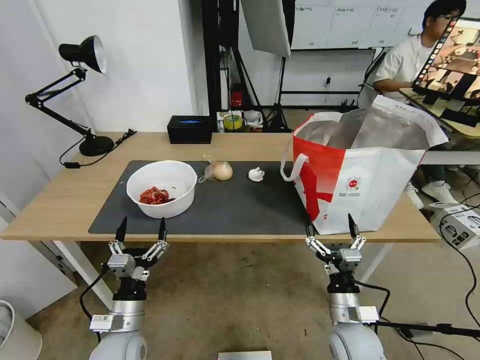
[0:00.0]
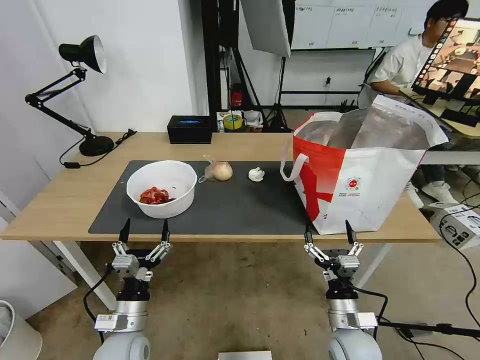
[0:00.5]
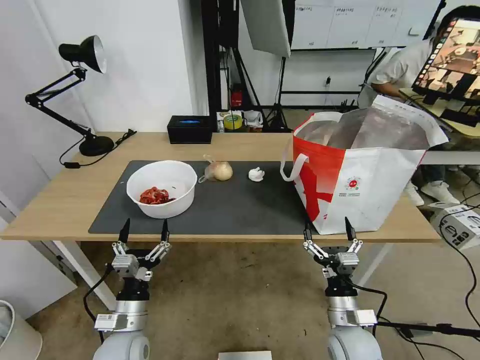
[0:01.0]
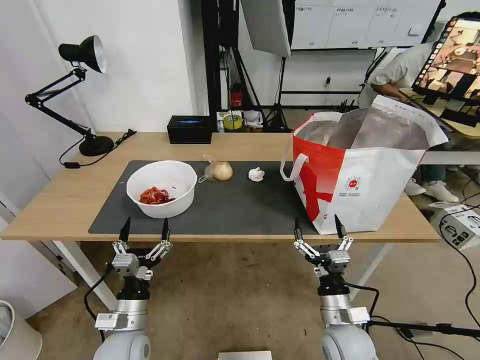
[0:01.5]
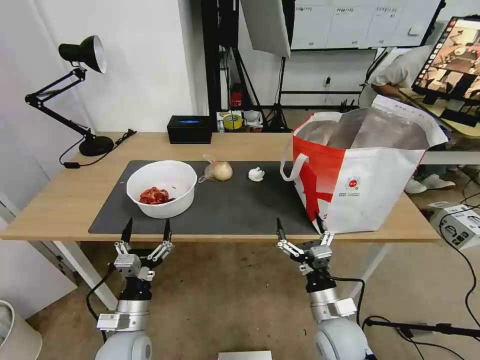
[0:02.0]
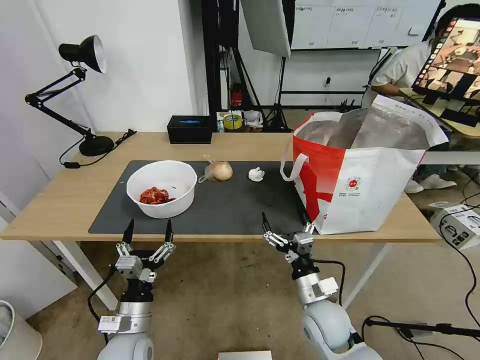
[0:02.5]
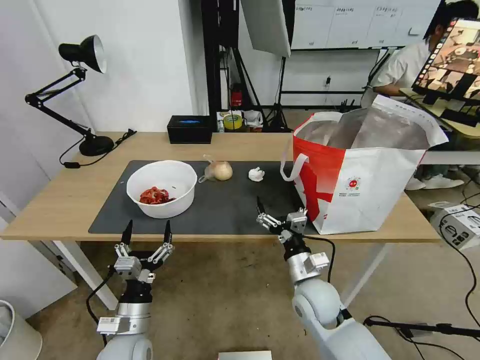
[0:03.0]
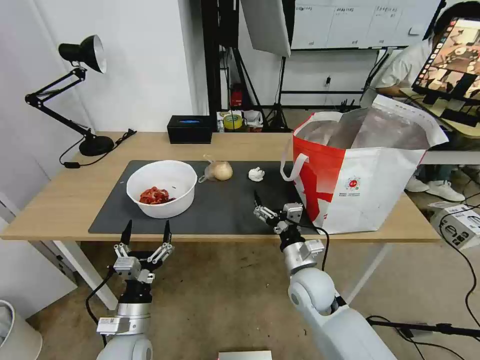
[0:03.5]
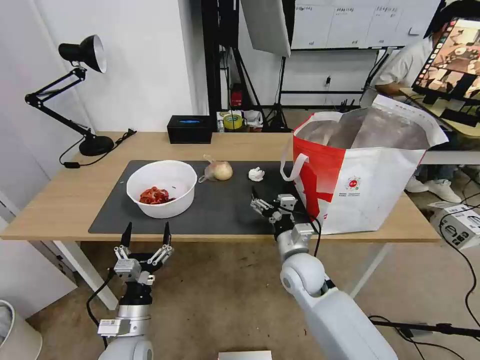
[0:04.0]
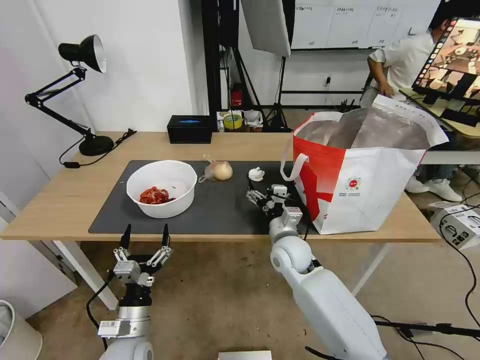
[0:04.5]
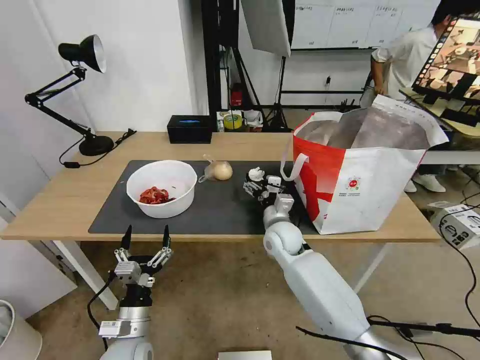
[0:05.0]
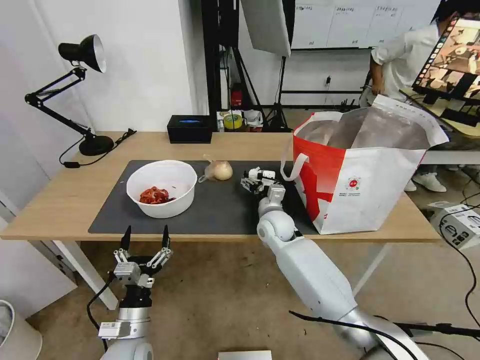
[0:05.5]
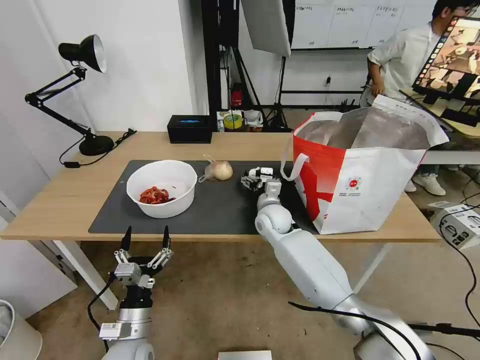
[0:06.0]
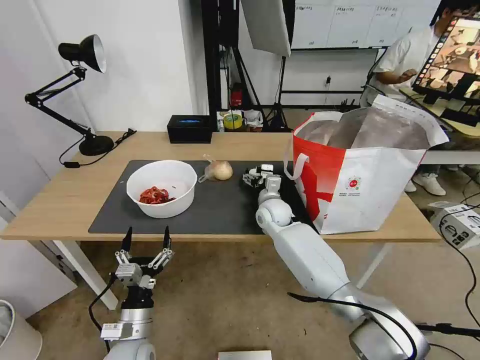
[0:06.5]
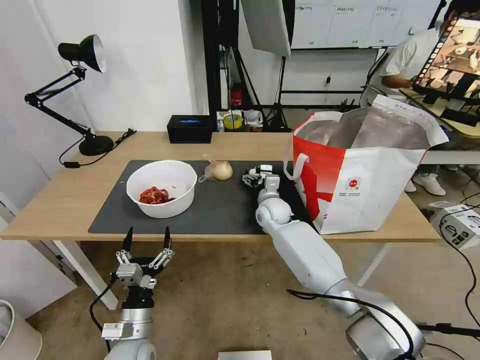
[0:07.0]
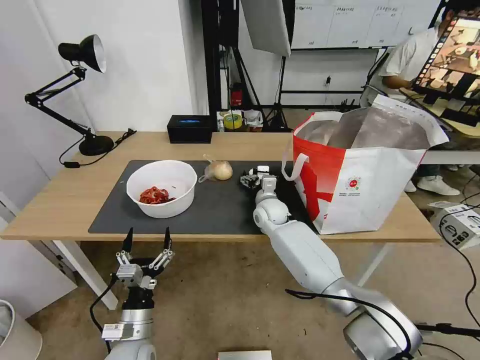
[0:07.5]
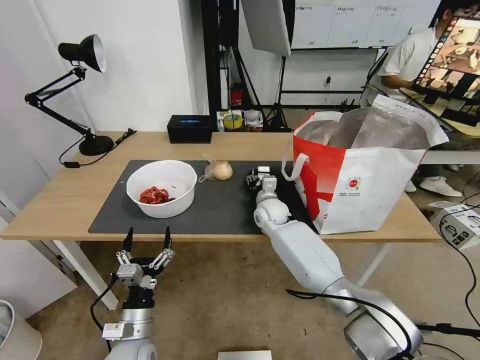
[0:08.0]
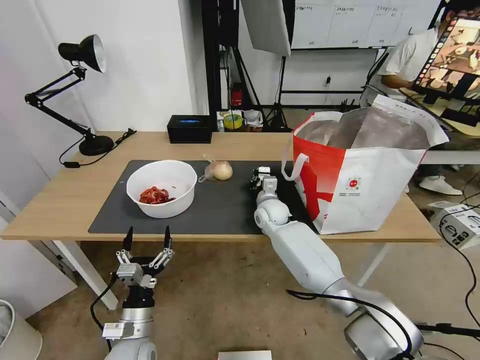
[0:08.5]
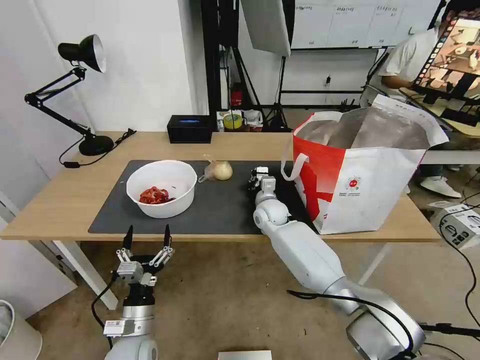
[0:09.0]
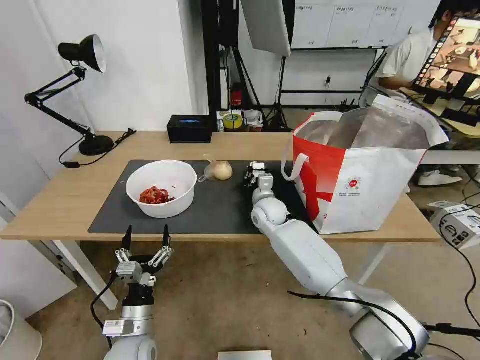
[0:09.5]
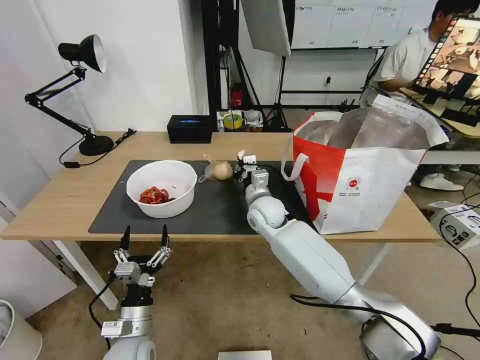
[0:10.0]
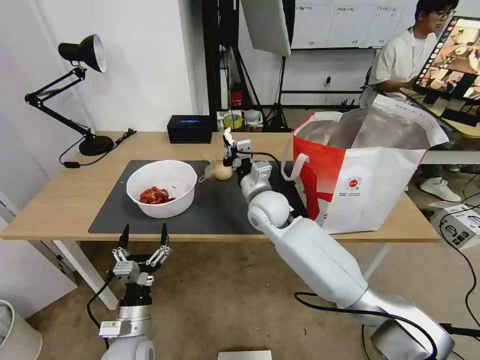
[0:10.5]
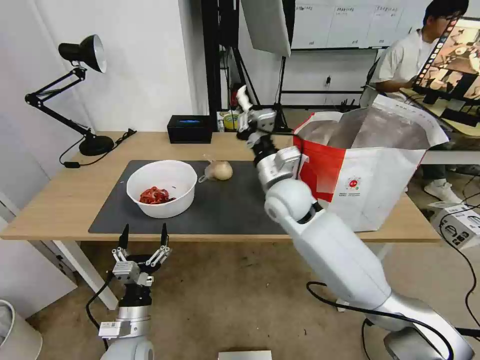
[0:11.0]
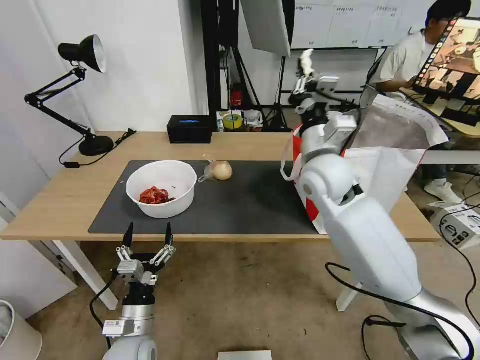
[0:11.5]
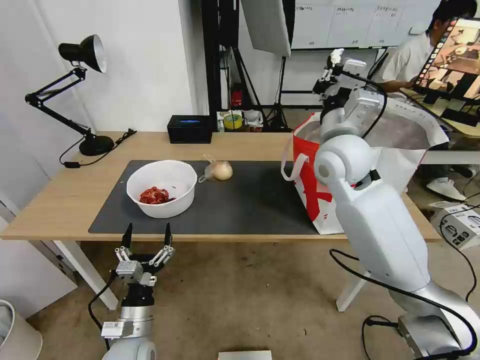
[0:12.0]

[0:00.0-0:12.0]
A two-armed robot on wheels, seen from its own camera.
Task of the whole recording: Pick up the trash from the table and place it into the takeout bag.
0.0 to 2.0 s: There are only small adjustments of the grippers.
2.0 to 4.0 s: The right gripper travels forward and to the left by approximately 15 cm.
4.0 to 6.0 s: The right gripper travels forward by approximately 15 cm.
6.0 to 8.0 s: The right gripper closes up.
8.0 to 10.0 s: The right gripper moves upward, some 5 cm, and closes up.
10.0 to 12.0 s: The right gripper is displaced upward and to the right by about 25 cm.

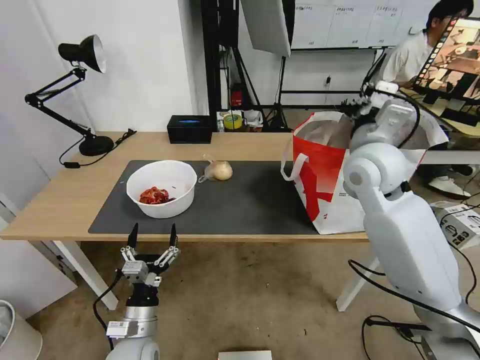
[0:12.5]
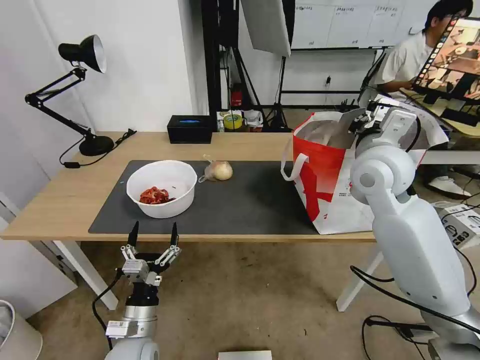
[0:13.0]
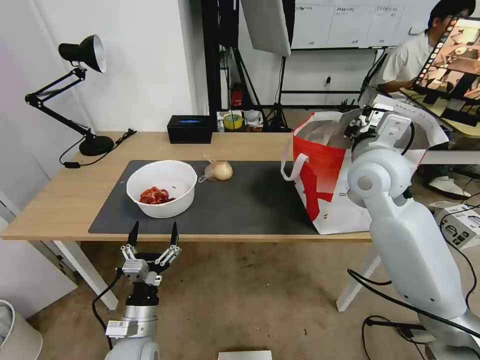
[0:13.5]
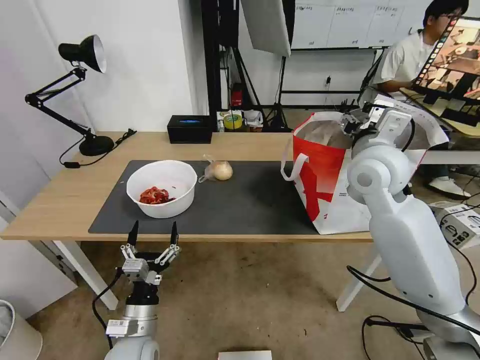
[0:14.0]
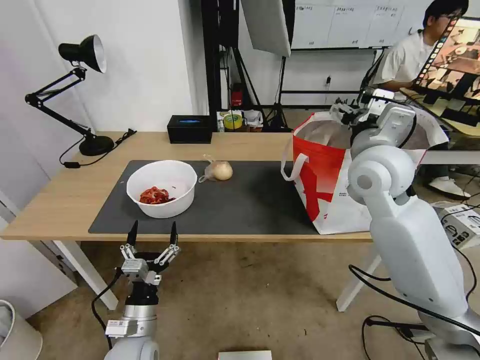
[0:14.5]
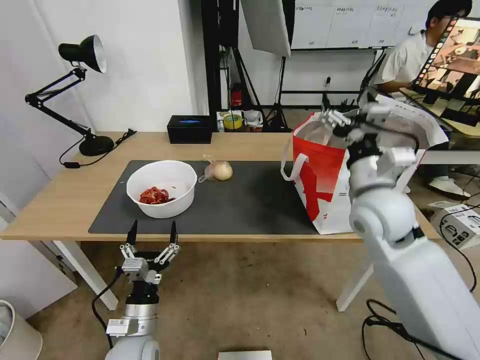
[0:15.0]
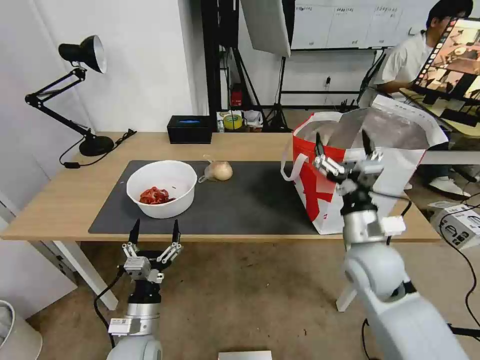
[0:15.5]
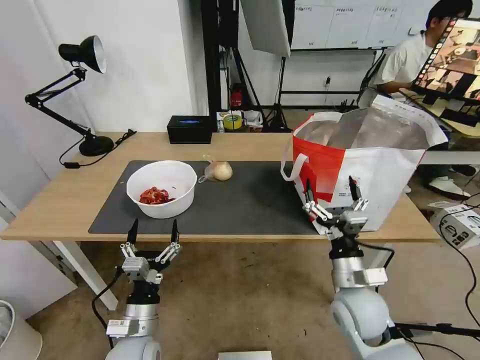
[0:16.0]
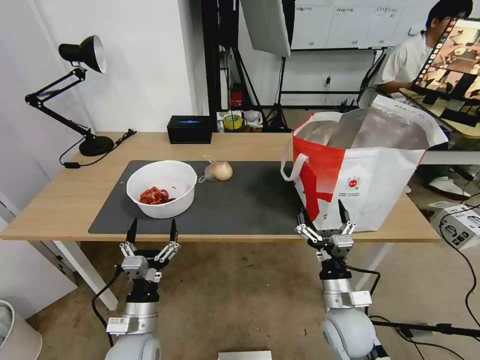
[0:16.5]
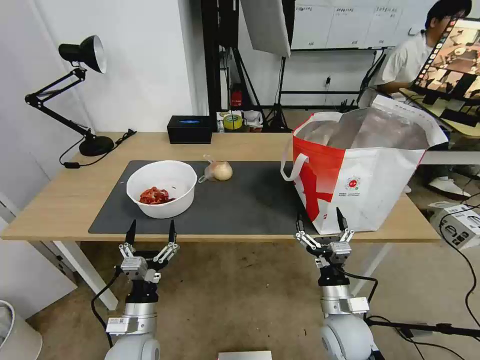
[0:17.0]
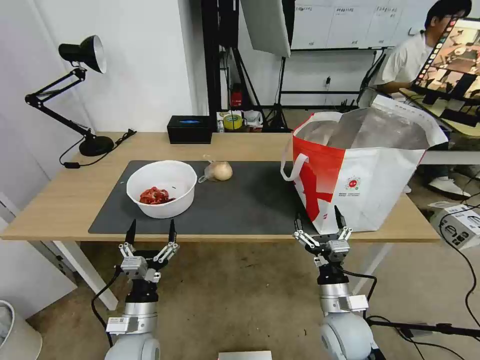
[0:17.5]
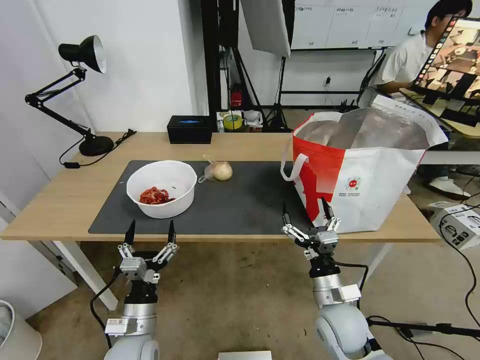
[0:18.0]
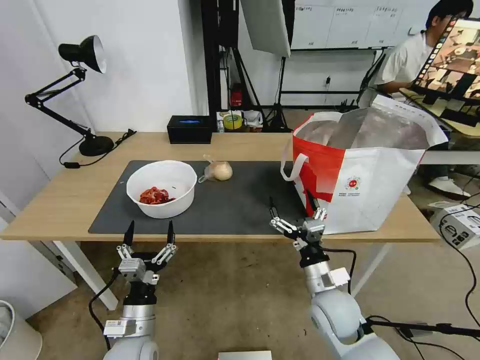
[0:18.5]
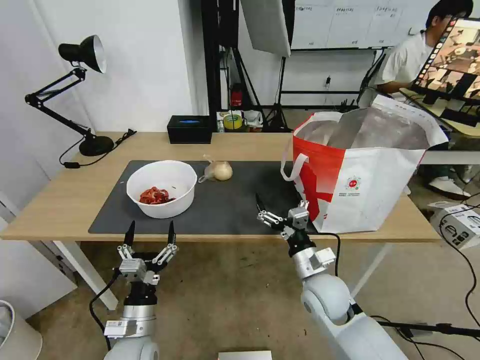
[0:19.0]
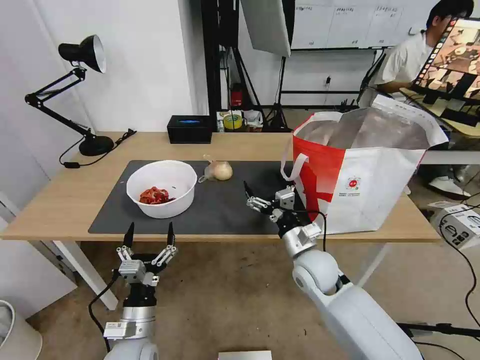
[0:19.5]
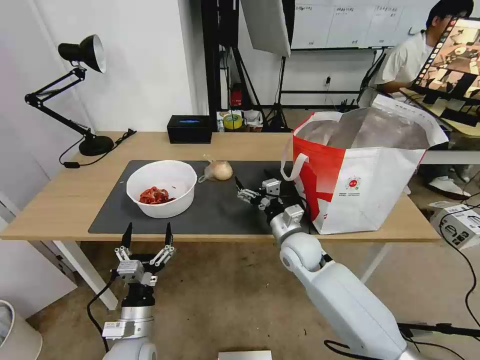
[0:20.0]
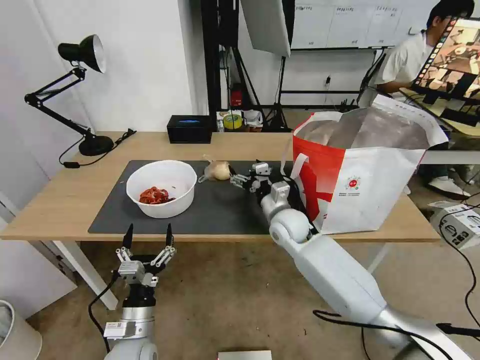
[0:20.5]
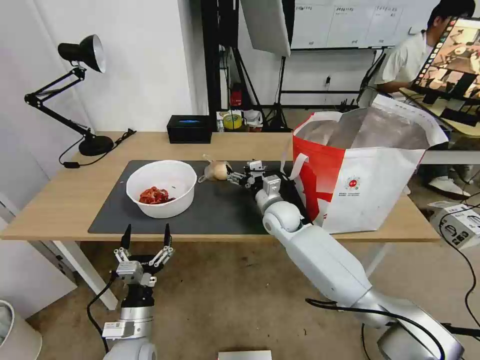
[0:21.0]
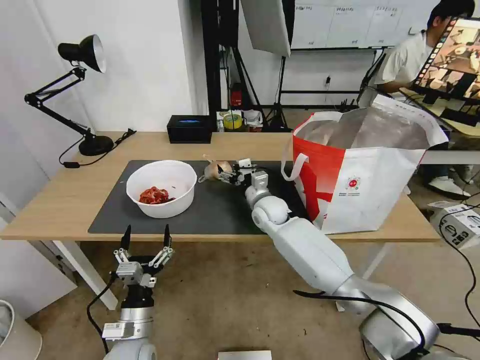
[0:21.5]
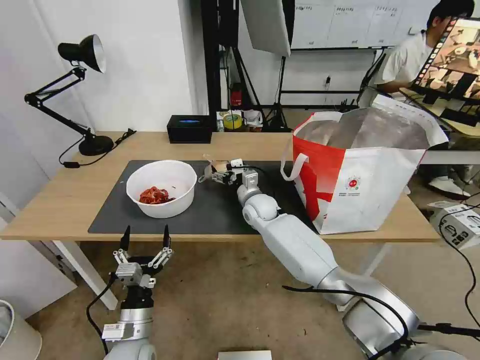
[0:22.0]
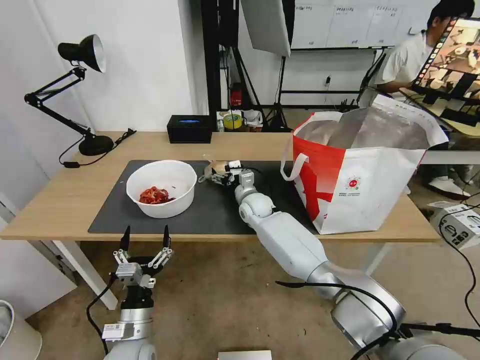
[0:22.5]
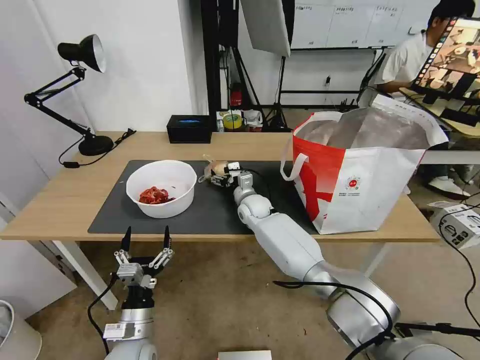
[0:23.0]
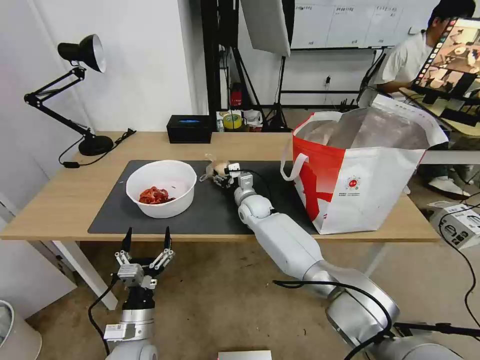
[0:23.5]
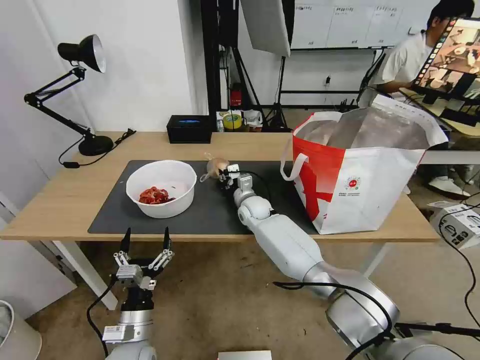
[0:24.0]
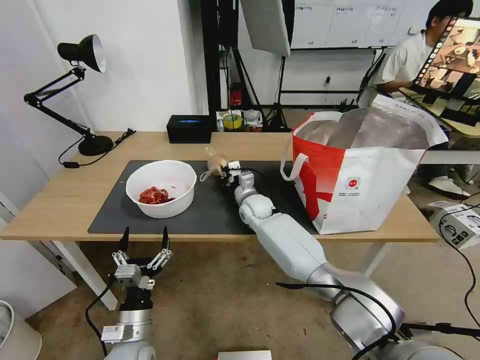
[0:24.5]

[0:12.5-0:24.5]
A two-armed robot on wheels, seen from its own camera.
Task of the whole recording: Pick up the trash from the table and place it into the takeout bag.
12.5 to 14.5 s: The right gripper opens up.
14.5 to 16.5 s: The right gripper moves downward and backward, approximately 35 cm.
16.5 to 18.5 s: The grippers move only a little.
18.5 to 20.5 s: The right gripper is displaced forward by approximately 20 cm.
20.5 to 22.5 s: The right gripper is displaced forward and to the left by about 10 cm.
22.5 to 24.5 s: The right gripper closes its fingers.

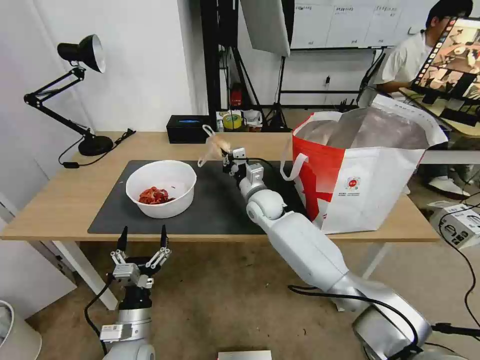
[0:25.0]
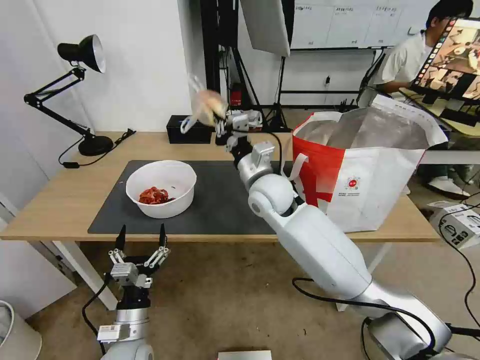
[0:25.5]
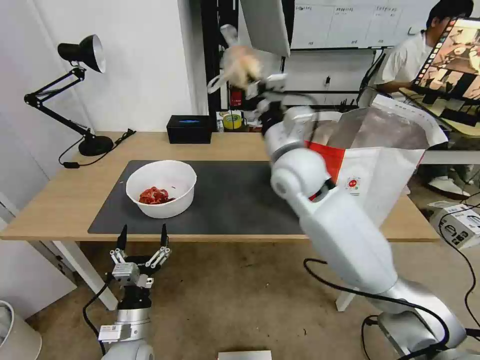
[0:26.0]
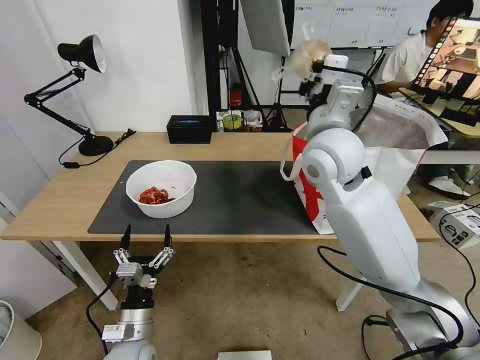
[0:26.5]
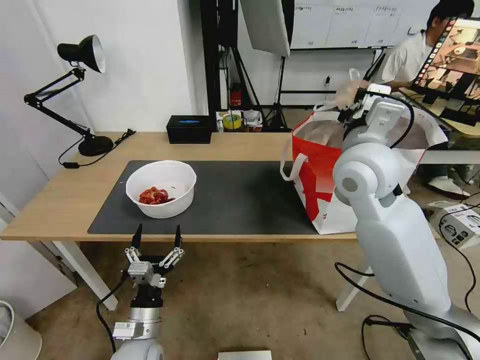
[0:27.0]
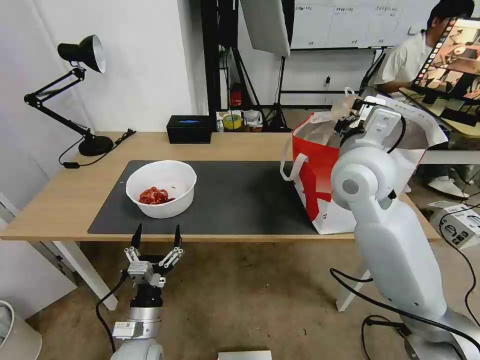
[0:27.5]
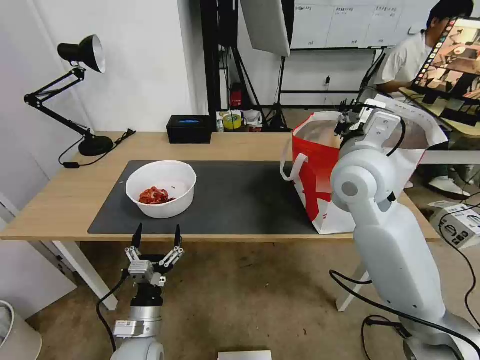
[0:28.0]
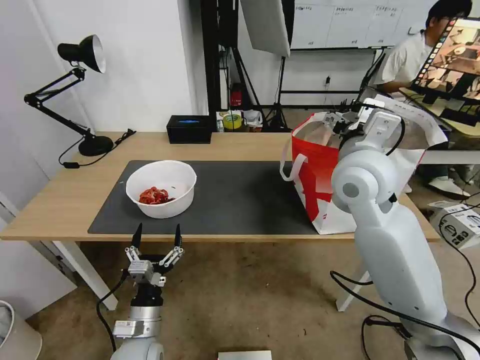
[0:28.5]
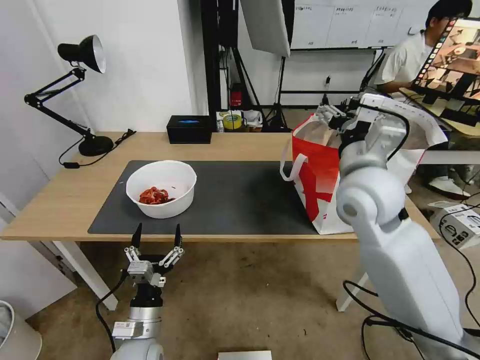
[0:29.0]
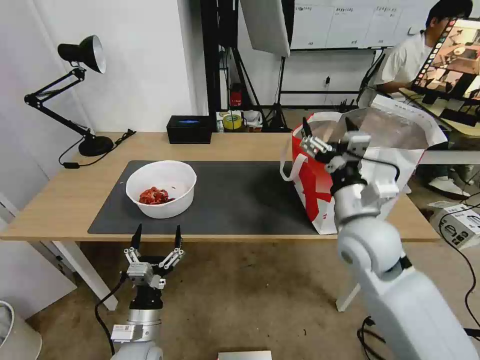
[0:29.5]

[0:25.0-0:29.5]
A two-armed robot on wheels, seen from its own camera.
Task of the whole recording: Pick up the trash from the table and place it into the takeout bag.
25.0 to 27.0 s: The right gripper heads upward, backward and to the right, covering approximately 30 cm.
27.0 to 29.5 s: The right gripper goes some 15 cm downward and backward, and opens up.
